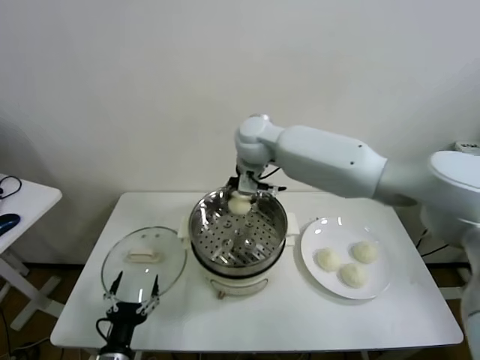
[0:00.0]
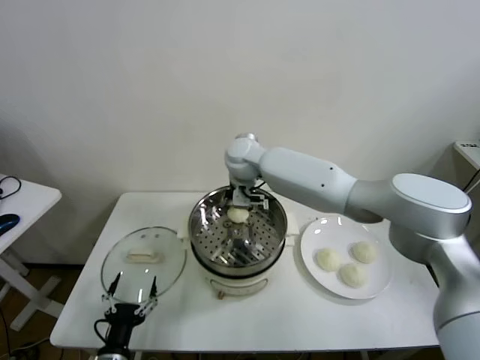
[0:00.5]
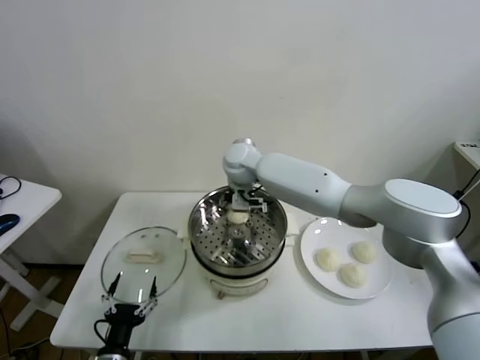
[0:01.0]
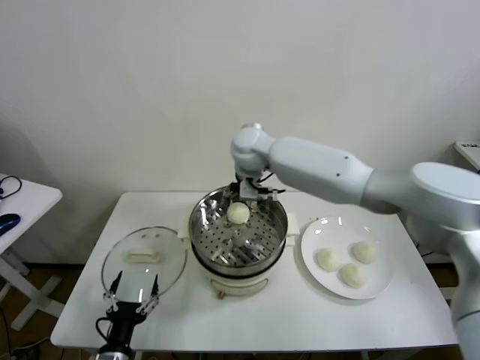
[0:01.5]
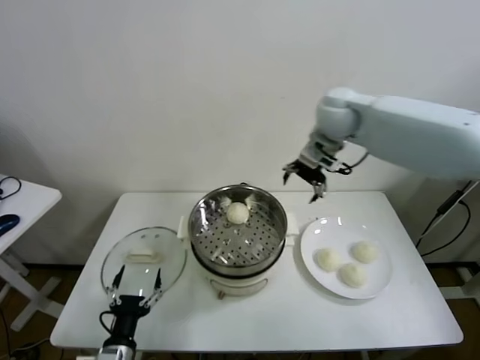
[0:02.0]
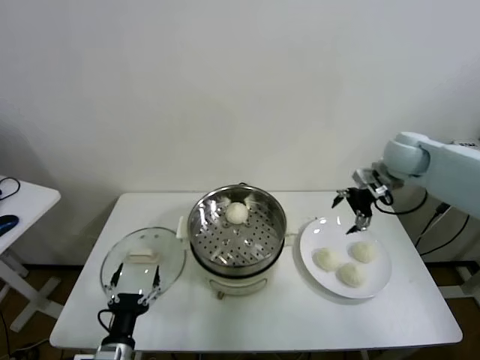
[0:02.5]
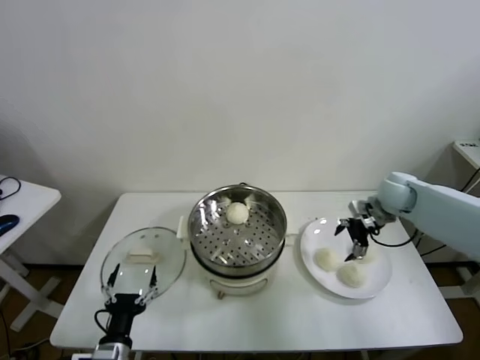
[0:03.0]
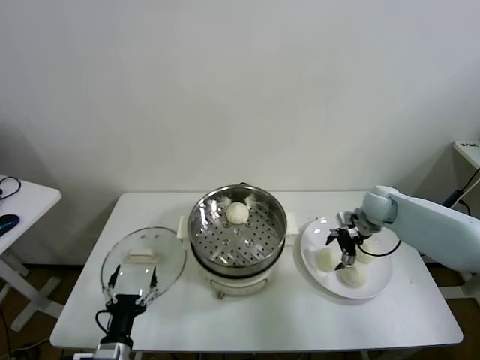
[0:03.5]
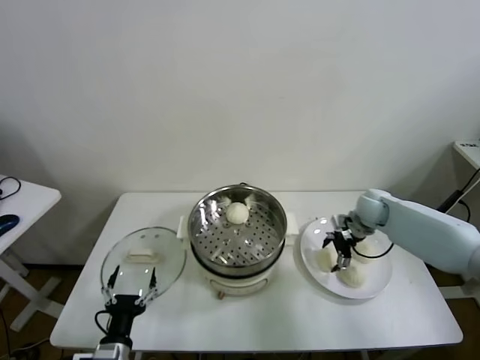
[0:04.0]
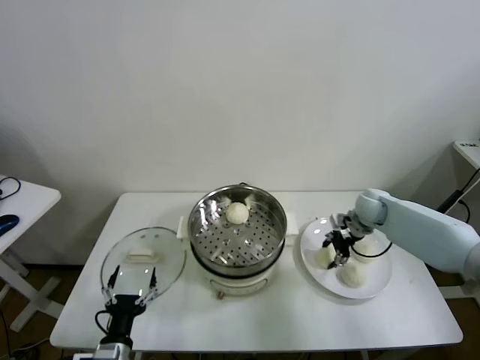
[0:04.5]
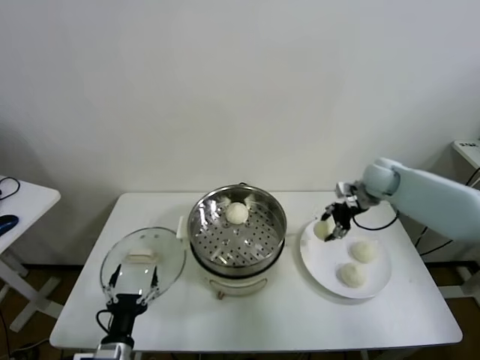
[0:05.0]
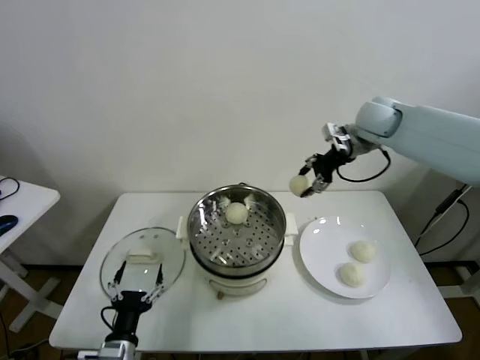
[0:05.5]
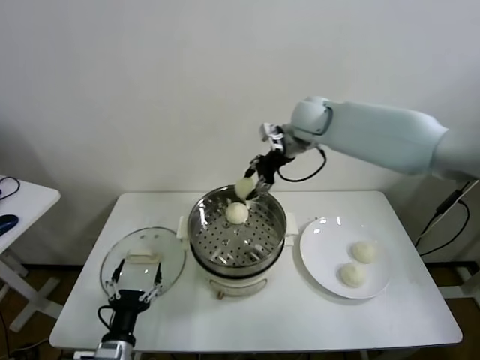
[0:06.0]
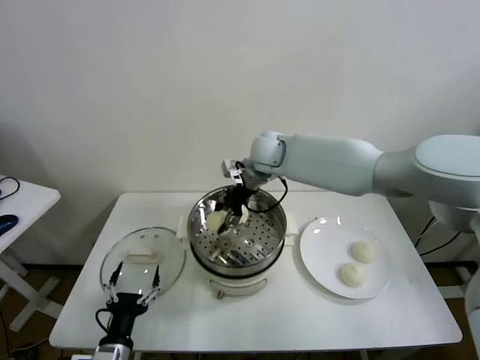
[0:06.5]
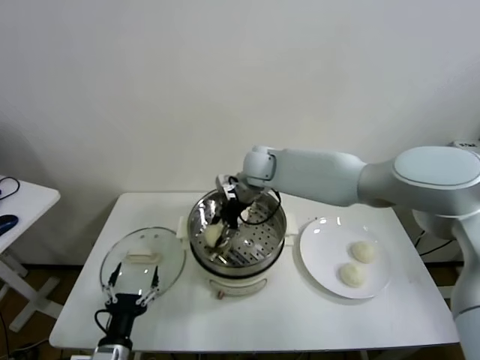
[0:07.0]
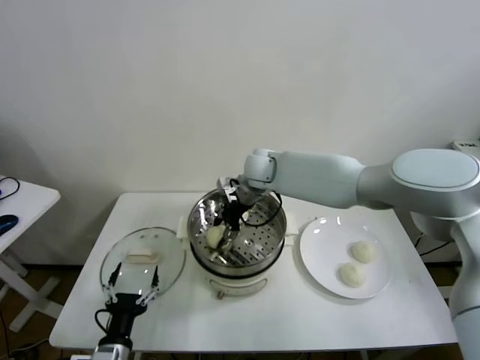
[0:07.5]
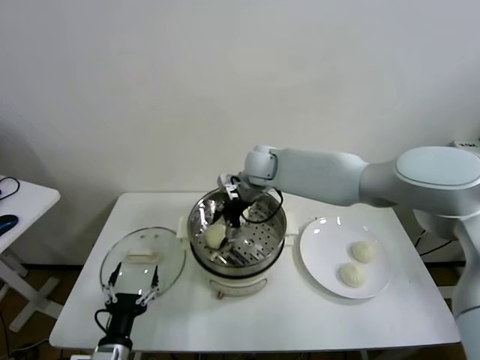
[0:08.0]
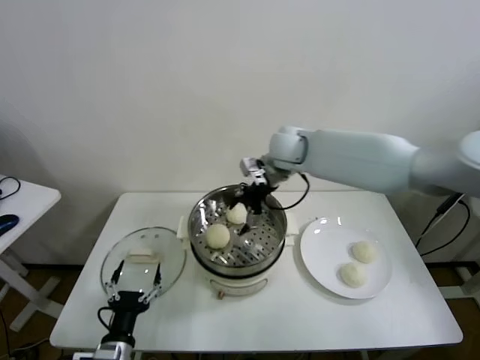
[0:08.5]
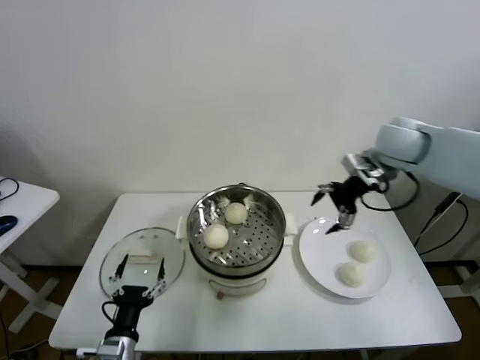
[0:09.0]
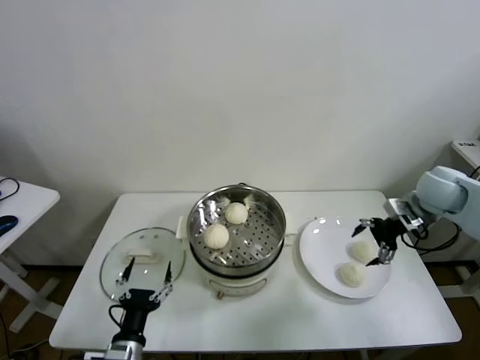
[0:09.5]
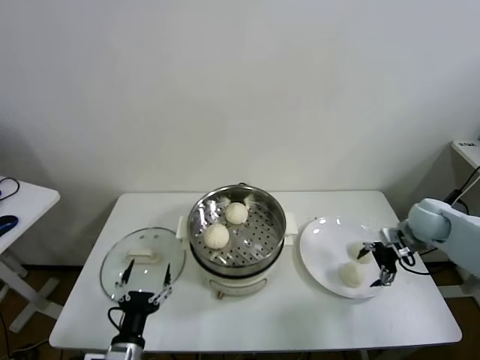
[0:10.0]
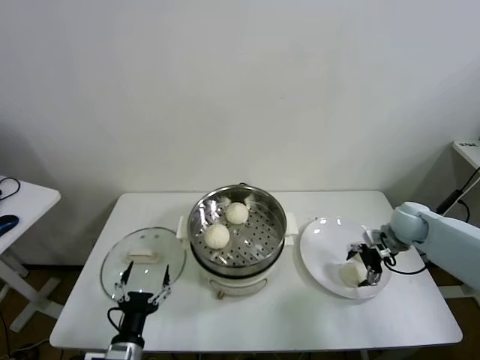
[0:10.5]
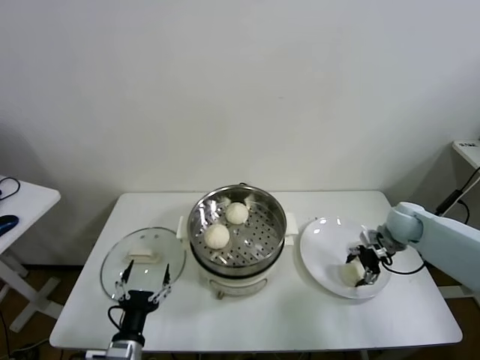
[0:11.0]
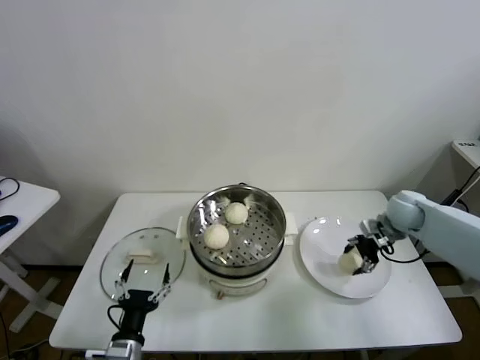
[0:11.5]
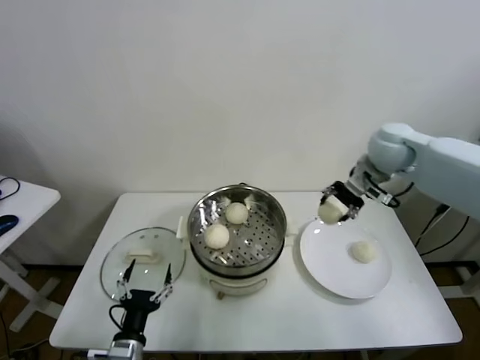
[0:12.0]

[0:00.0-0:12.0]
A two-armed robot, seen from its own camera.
Task of the whole recording: take steamed baozi put them in steamer.
Step, 0:01.5 to 0:04.0: Grasp the baozi in the plate with right gripper.
Step, 0:04.5 to 0:07.5: Place the baozi on the steamer with right gripper.
Step, 0:08.0 to 0:10.5: Grasp the baozi in the plate with right gripper.
0:00.0 to 0:02.0: The right gripper heads to the right, covering approximately 25 cm, and opens up.
0:02.0 to 0:04.0: The right gripper heads downward, covering about 25 cm.
0:04.0 to 0:06.0: The right gripper shifts approximately 30 cm upward and to the left, and closes.
0:06.0 to 0:08.0: The right gripper goes some 10 cm downward and to the left, and opens its fingers.
0:08.0 to 0:10.0: The right gripper moves to the right, some 40 cm.
0:10.0 to 0:12.0: The right gripper goes roughly 25 cm upward and to the left, and closes up.

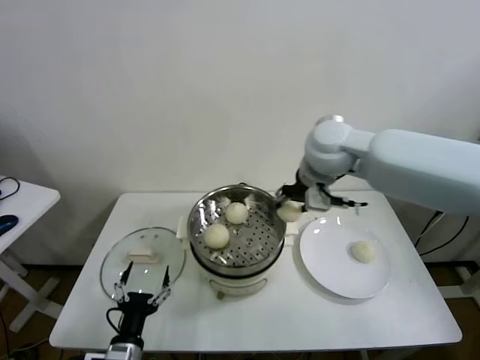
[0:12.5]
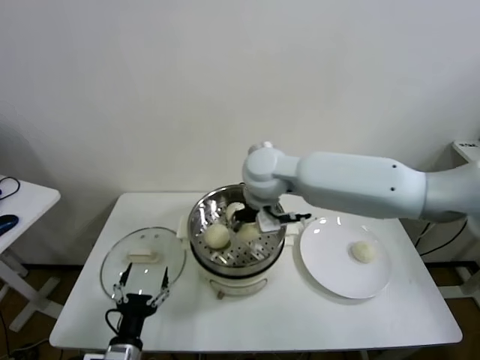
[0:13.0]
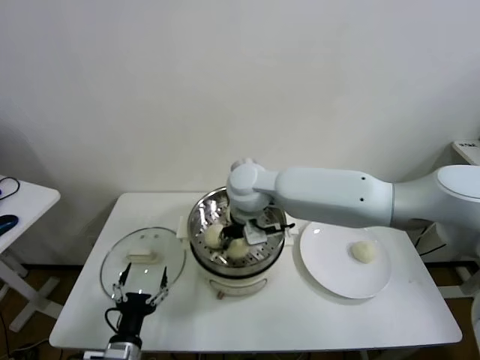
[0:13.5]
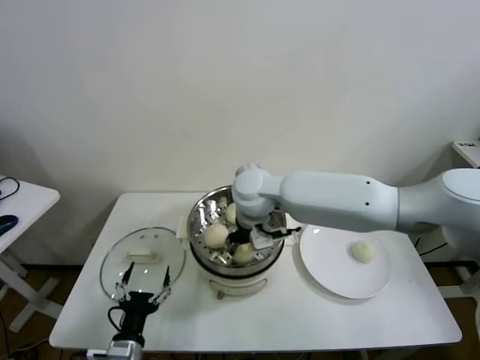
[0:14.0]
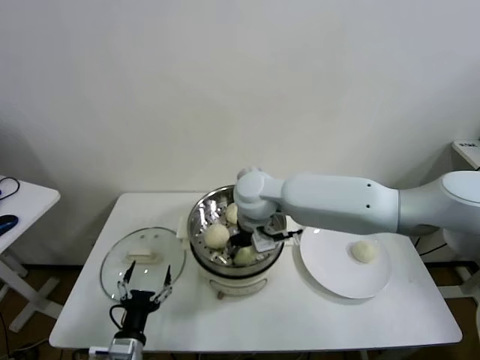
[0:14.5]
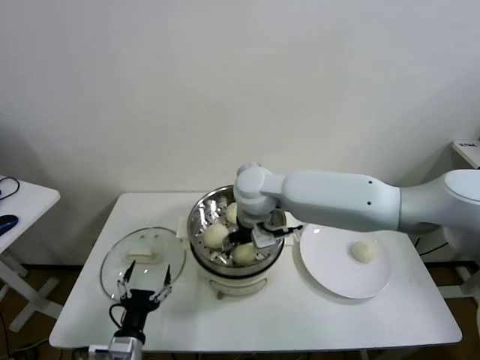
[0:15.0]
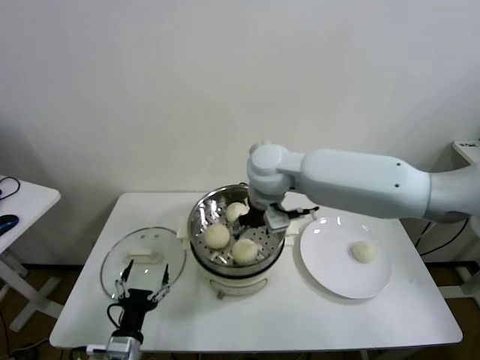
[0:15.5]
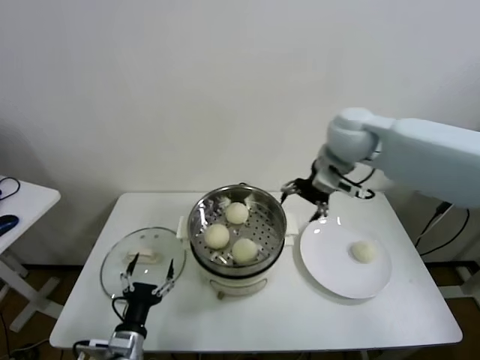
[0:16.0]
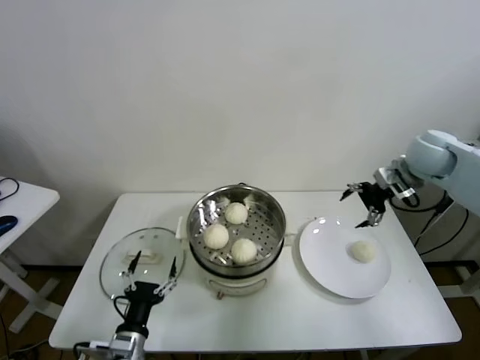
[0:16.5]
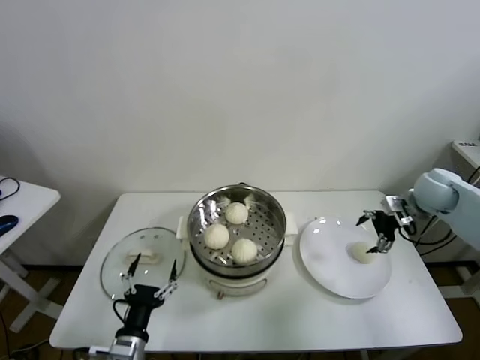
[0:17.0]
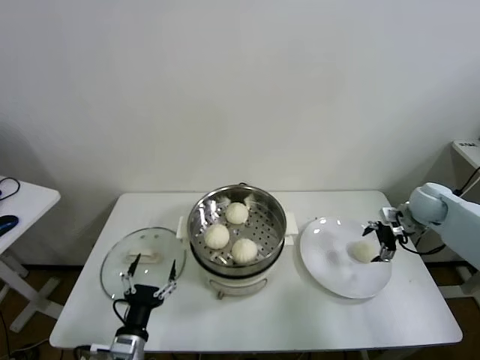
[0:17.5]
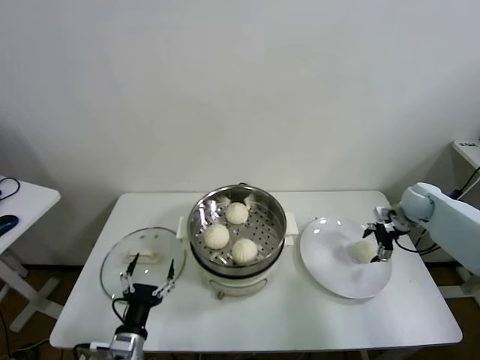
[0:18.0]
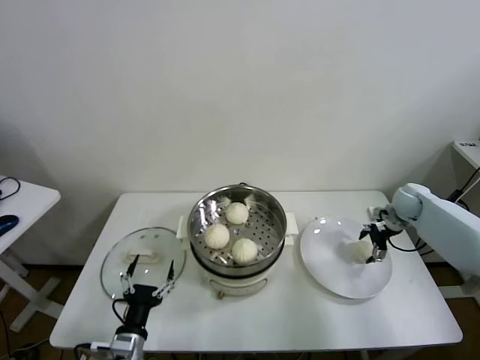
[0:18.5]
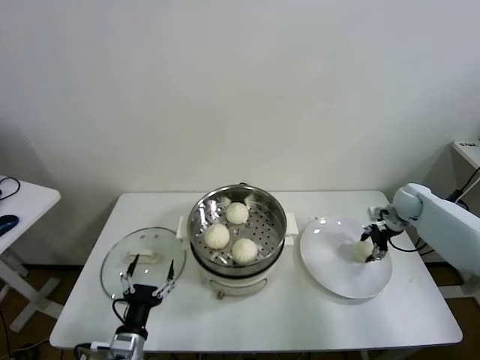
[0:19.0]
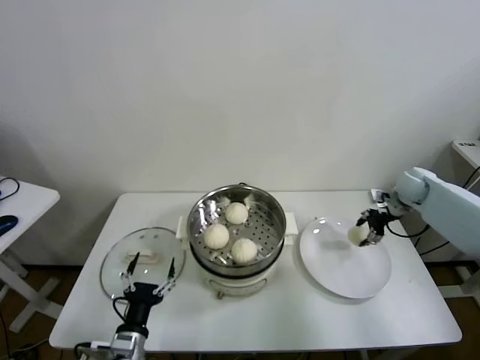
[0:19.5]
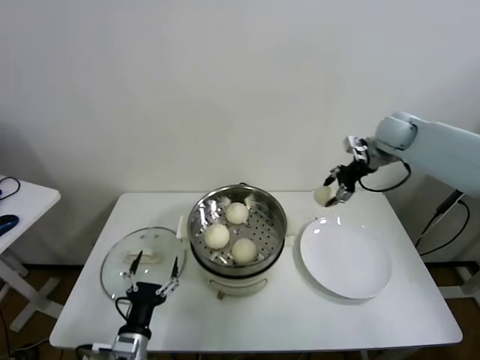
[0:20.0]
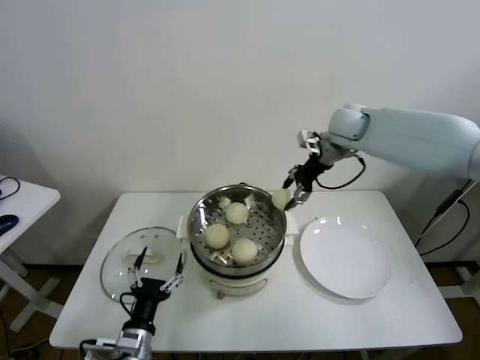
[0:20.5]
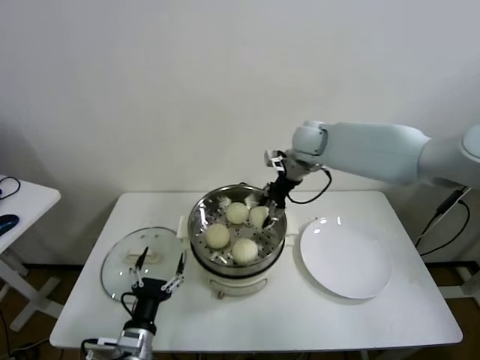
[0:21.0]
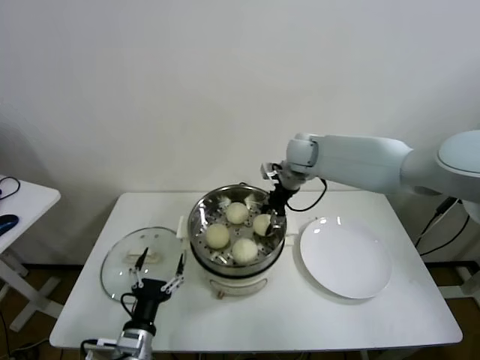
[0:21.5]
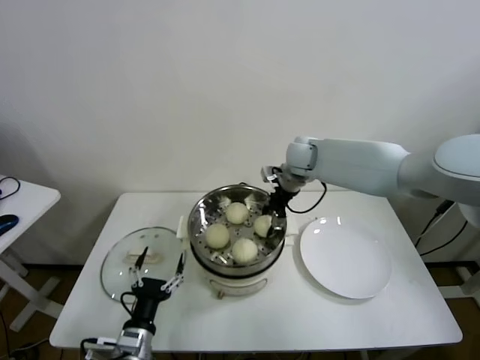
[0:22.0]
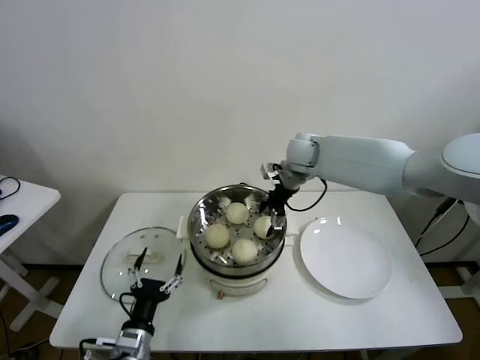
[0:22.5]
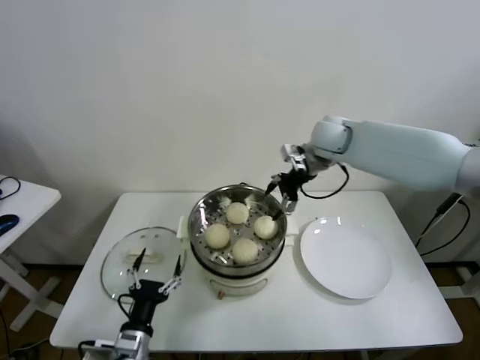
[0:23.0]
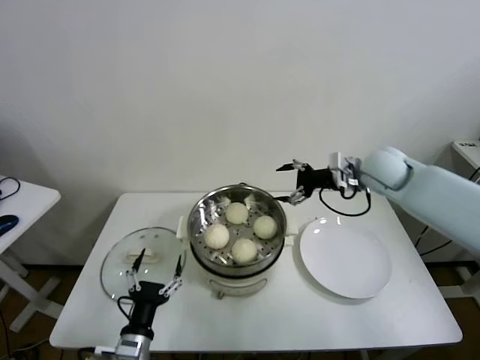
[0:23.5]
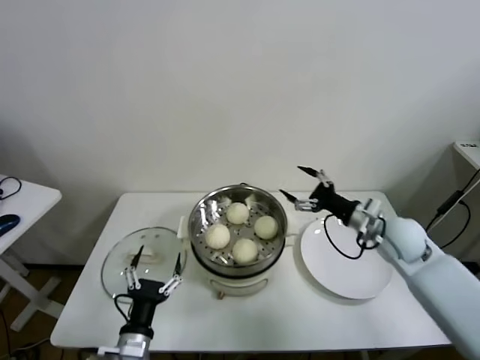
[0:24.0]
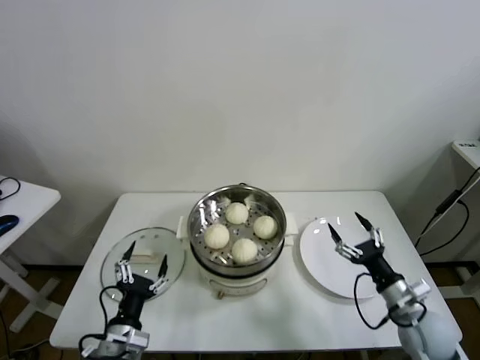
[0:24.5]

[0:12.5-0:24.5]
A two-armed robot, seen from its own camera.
Task of the whole recording: take steamed baozi put them in steamer.
Step, 0:12.5 to 0:15.0: Place the baozi on the steamer with right gripper.
Step, 0:15.5 to 0:18.5: Grasp the baozi in the plate with right gripper.
Step, 0:19.0 to 0:22.0: Place the baozi on the steamer with right gripper.
0:12.5 to 0:14.5: The right gripper travels to the left and downward by some 15 cm.
0:14.5 to 0:16.5: The right gripper is displaced to the right by roughly 35 cm, and opens up.
0:16.5 to 0:18.5: The right gripper heads downward, covering some 20 cm.
0:18.5 to 0:20.5: The right gripper shifts some 30 cm upward and to the left, and closes.
0:20.5 to 0:22.5: The right gripper moves to the left and downward, roughly 10 cm, and opens up.
0:22.5 to 0:24.5: The right gripper shifts about 40 cm backward, to the right and downward.

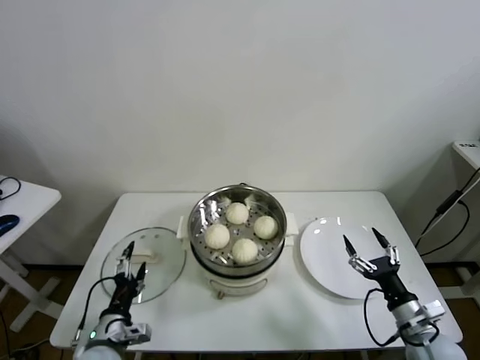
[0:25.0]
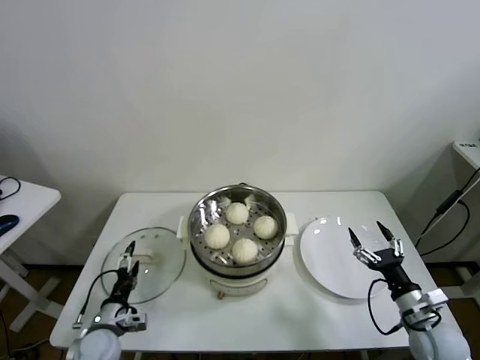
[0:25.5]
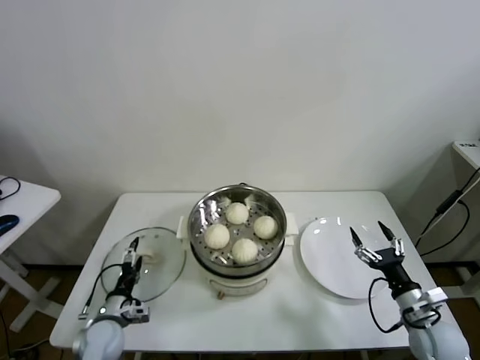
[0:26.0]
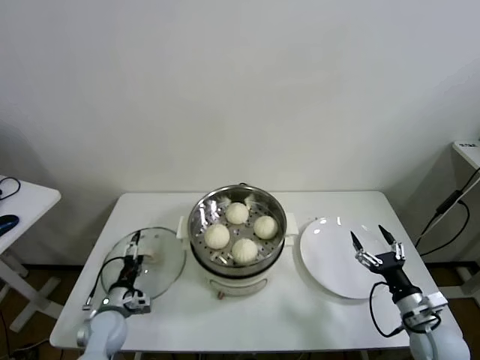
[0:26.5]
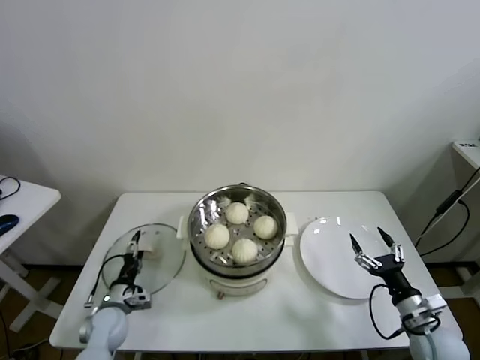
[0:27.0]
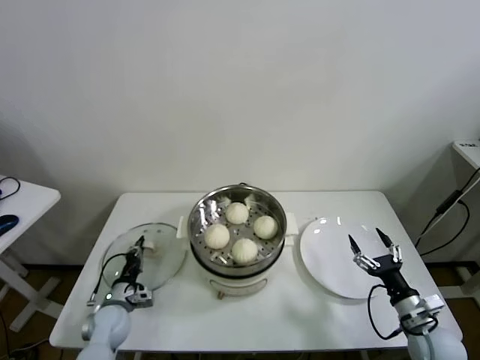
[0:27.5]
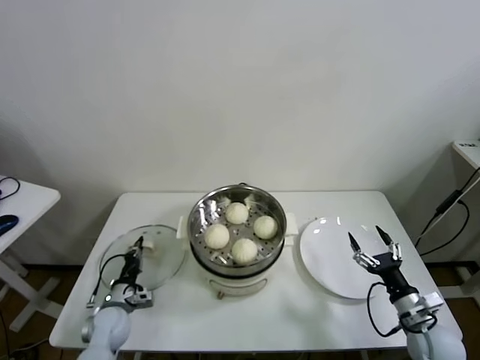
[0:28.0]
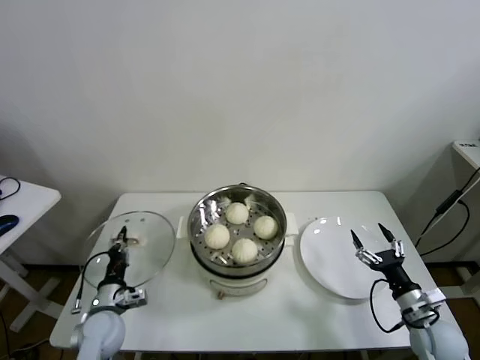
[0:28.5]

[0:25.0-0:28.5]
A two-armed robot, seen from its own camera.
Task of the whole recording: take steamed baozi put them in steamer.
Step, 0:25.0 to 0:27.5: Grasp the pot lid with left gripper.
0:25.0 to 0:27.0: The left gripper is displaced forward, downward and to the left by about 15 cm.
0:27.0 to 0:28.5: The left gripper changes place by approximately 5 cm, and closes.
